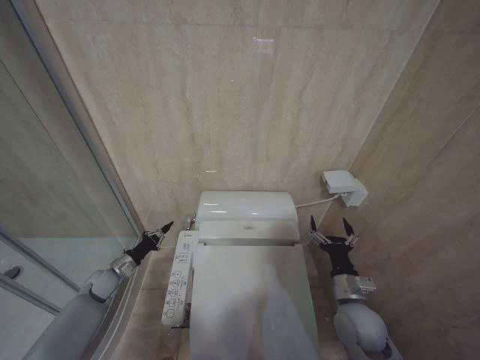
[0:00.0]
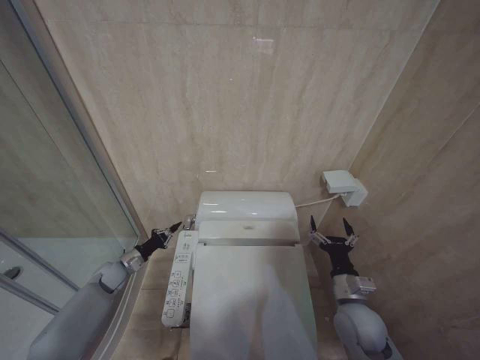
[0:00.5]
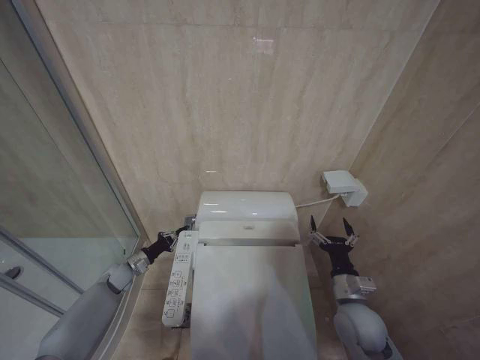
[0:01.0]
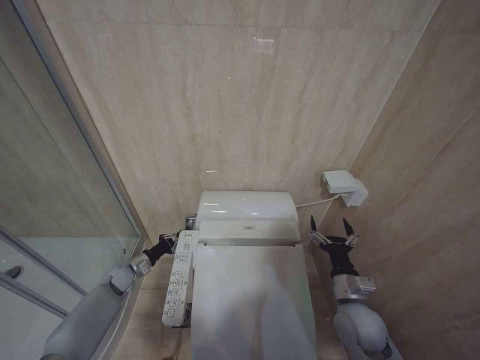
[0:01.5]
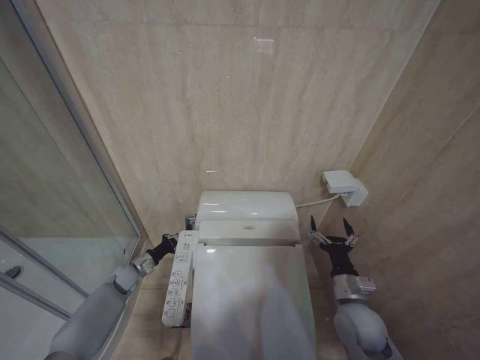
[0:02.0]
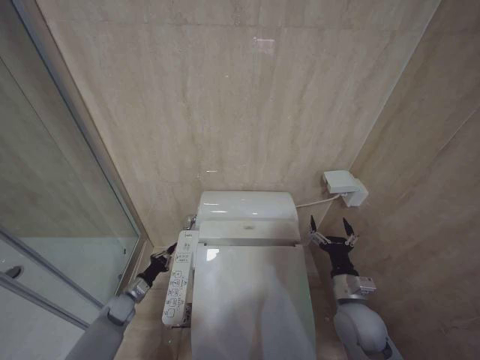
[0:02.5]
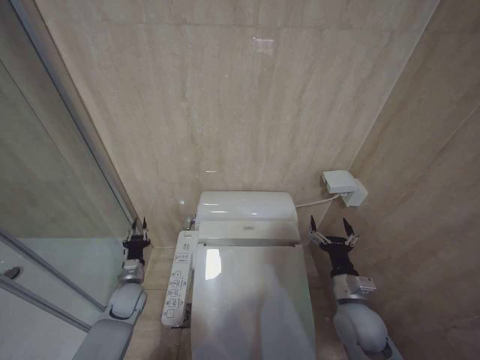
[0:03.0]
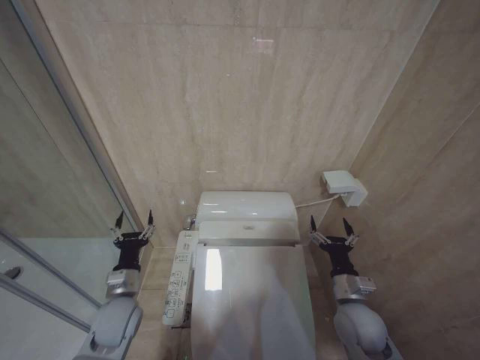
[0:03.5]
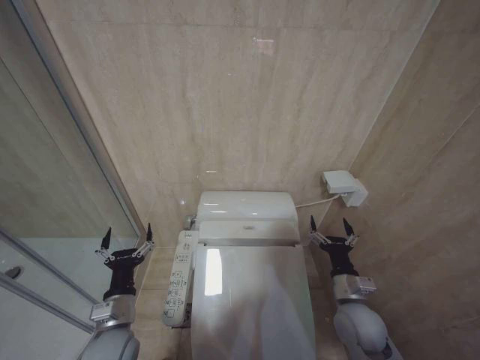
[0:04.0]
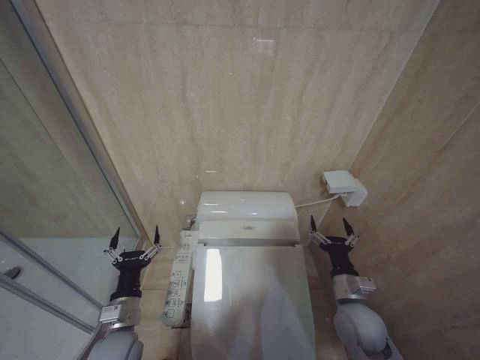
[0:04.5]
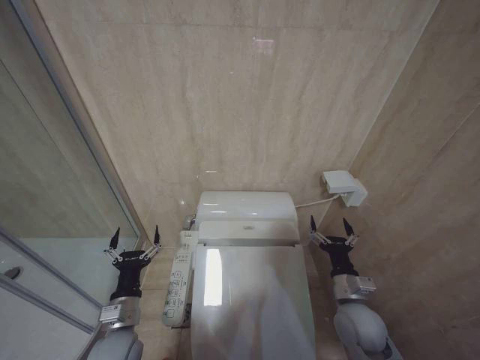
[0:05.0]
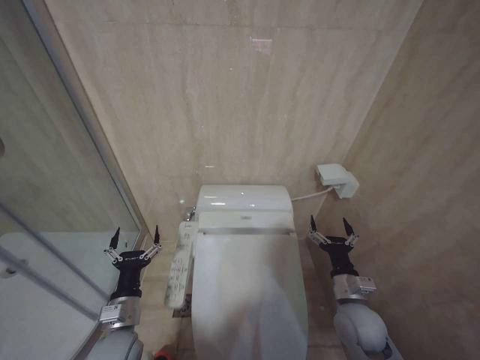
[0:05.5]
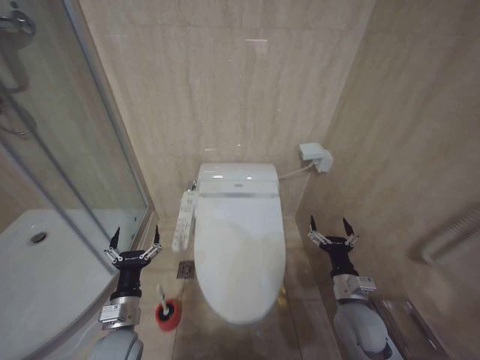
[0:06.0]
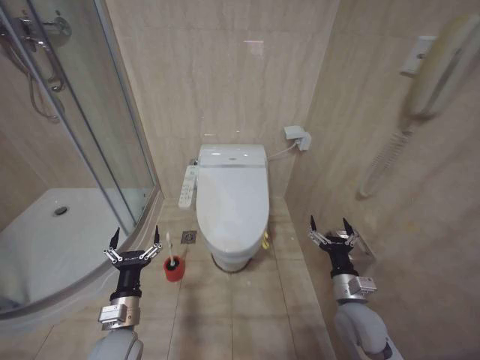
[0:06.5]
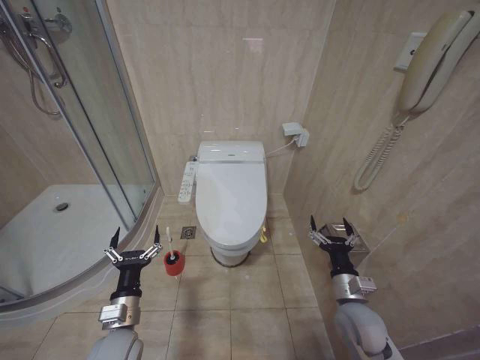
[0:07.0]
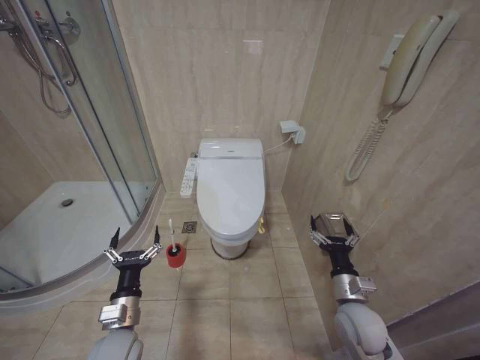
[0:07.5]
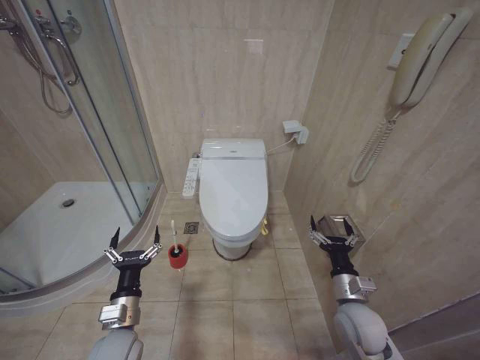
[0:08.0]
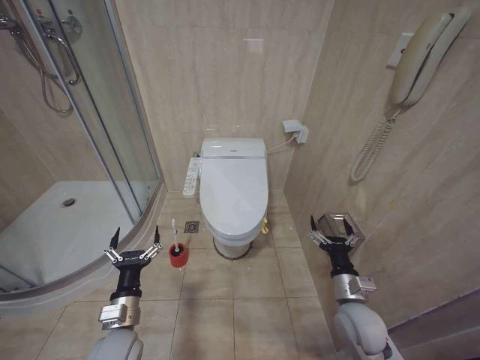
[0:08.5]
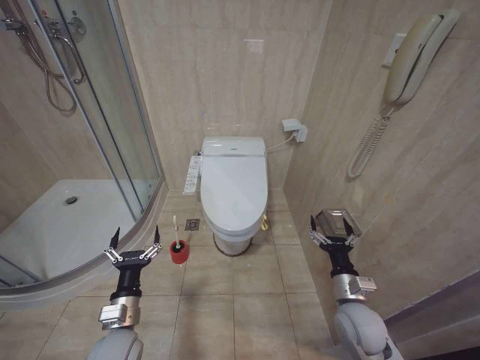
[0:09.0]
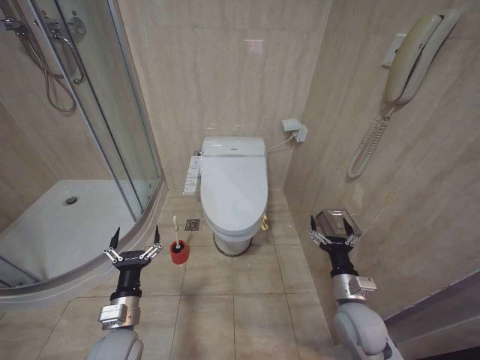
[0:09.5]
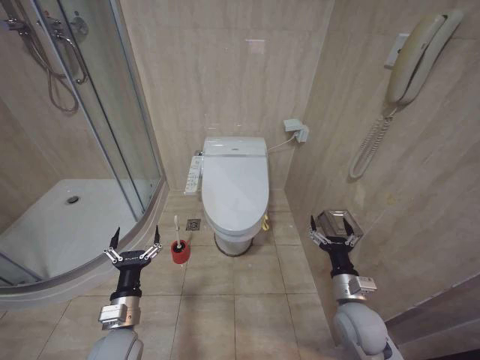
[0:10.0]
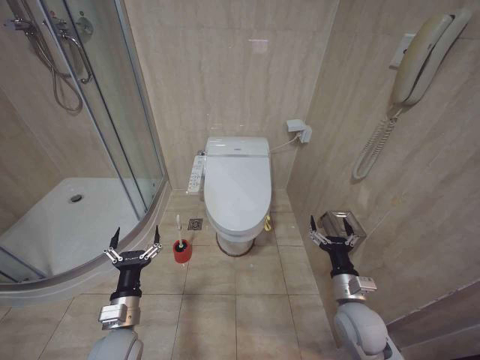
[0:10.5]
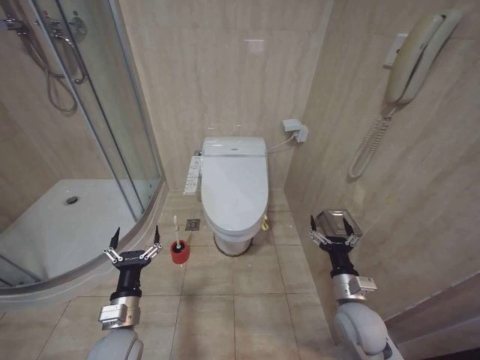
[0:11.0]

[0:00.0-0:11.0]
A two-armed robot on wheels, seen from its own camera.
Task of the whole recording: Open the toilet lid, clean the toilet bowl with a toilet brush, close the toilet lid, and flush.
0.0 to 2.0 s: The left gripper changes place by some 5 cm.
2.0 to 3.5 s: The left gripper shifts about 20 cm backward, upward and to the right, and opens its fingers.
3.5 to 5.5 s: The left gripper heads backward, covering about 10 cm, and opens up.
7.5 to 11.0 s: Neither gripper changes place.

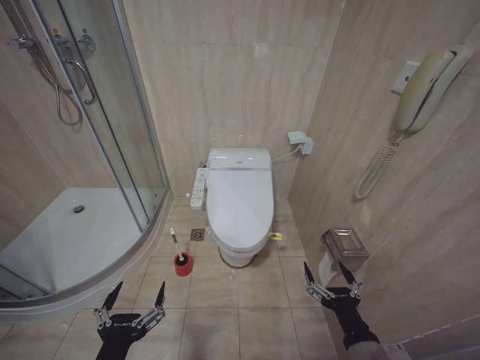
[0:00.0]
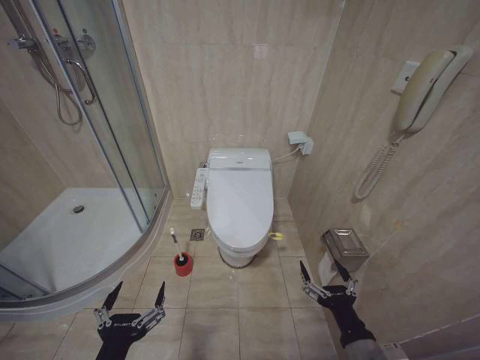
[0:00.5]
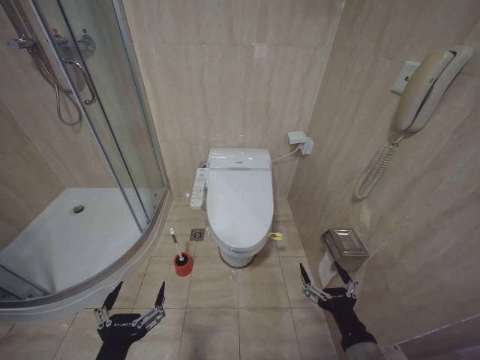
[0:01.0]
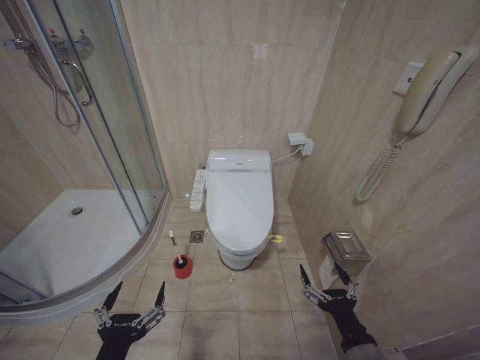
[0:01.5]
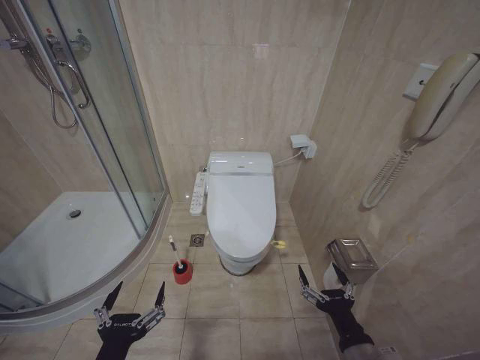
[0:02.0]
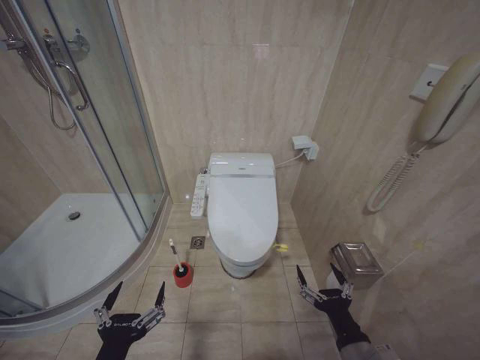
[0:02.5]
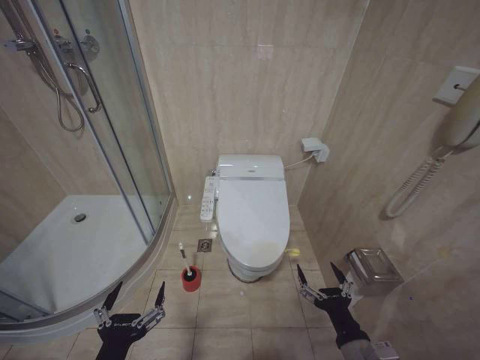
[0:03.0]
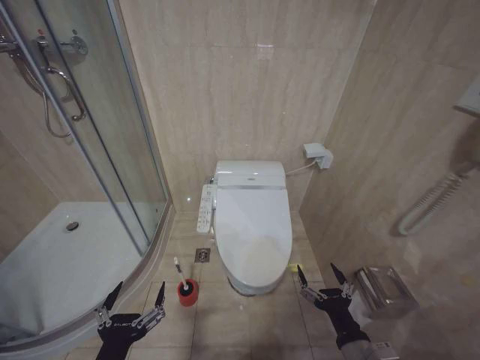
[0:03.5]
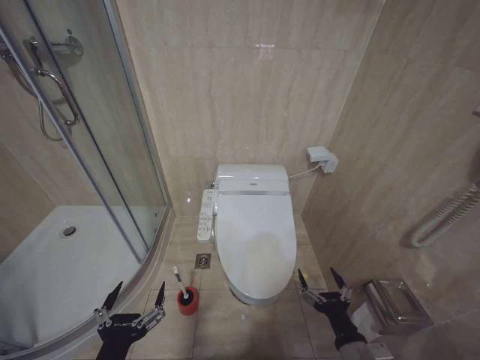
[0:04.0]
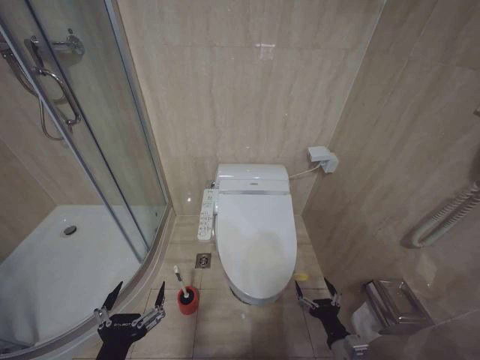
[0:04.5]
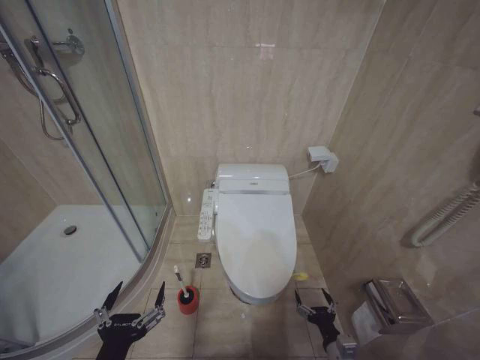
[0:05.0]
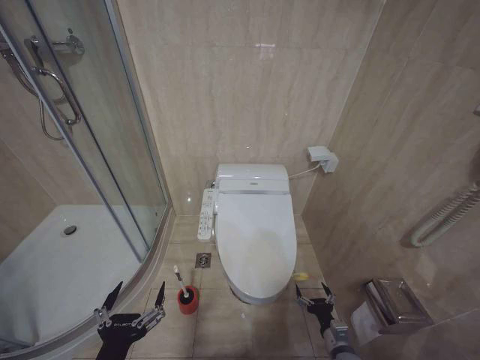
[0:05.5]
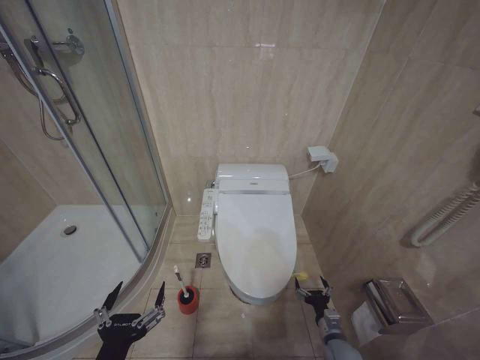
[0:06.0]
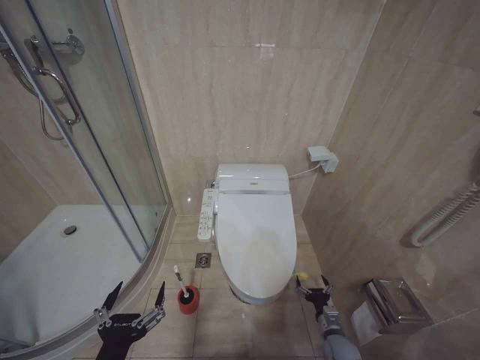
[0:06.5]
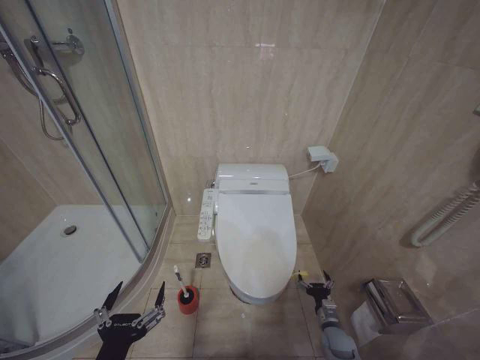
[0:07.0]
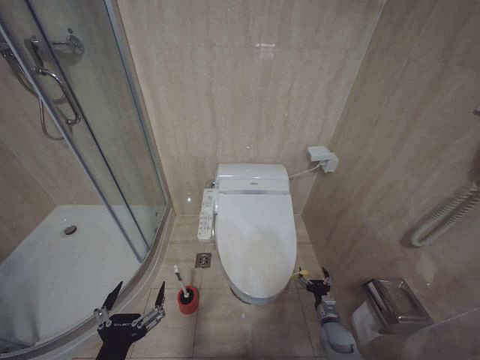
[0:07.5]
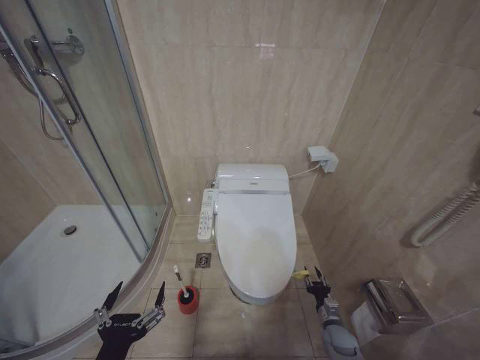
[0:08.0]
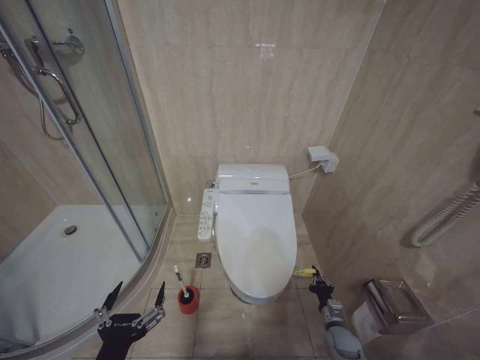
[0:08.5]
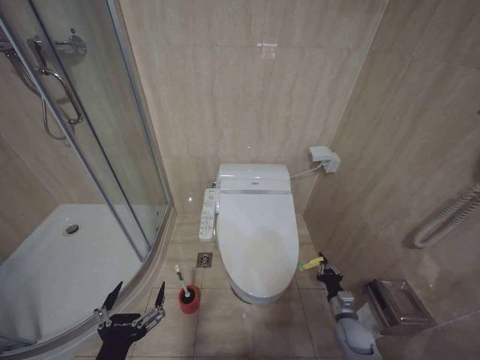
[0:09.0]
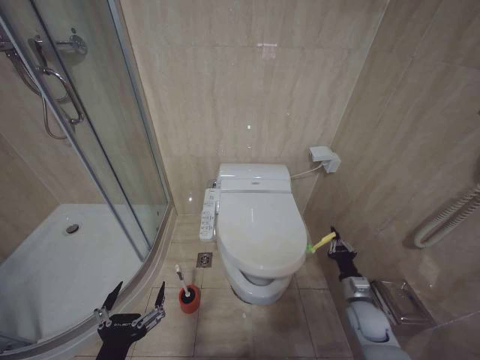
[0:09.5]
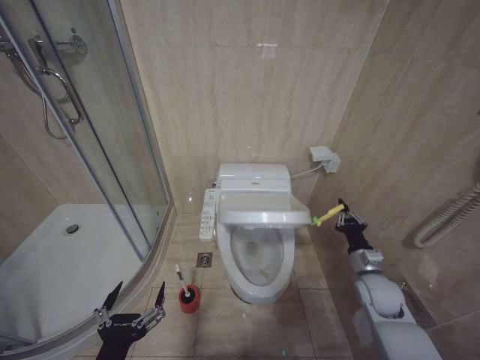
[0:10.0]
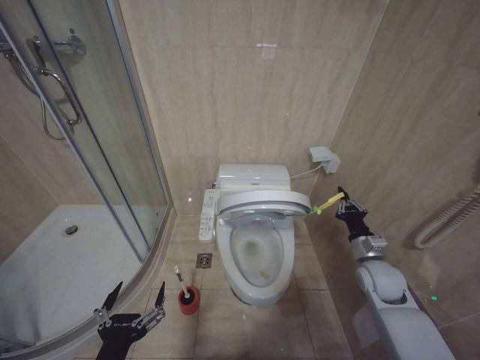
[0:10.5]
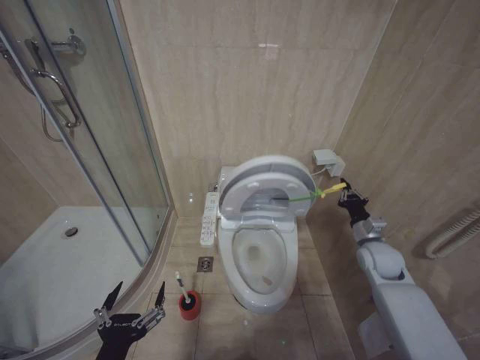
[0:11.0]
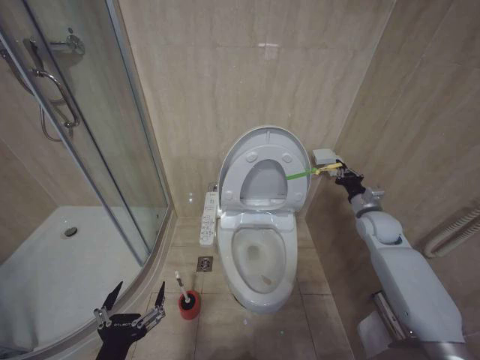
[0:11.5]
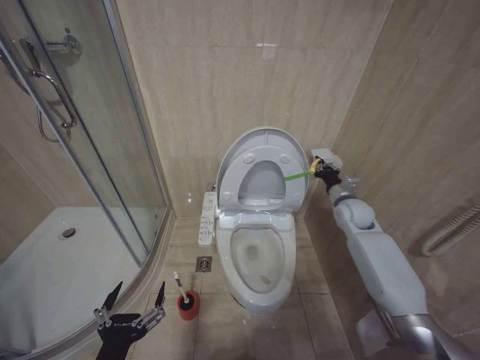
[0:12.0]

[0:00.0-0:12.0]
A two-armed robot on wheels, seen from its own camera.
Task of the whole recording: Open the toilet lid, clean the toilet bowl with a toilet brush, close the toilet lid, and flush.
2.0 to 4.0 s: The grippers make only small movements.
4.0 to 6.0 s: The right gripper goes roughly 20 cm downward and forward.
6.0 to 8.0 s: The right gripper moves forward, roughly 5 cm, and closes up.
8.0 to 10.0 s: The right gripper is displaced upward by roughly 20 cm, and closes up.
10.0 to 12.0 s: The right gripper moves forward and upward, some 20 cm.

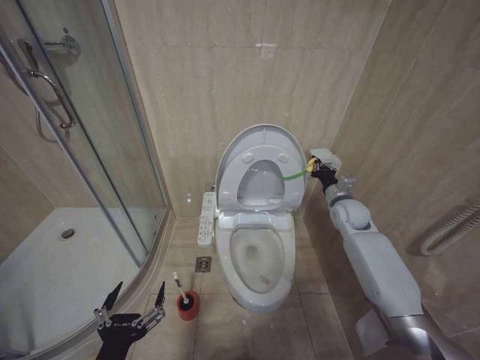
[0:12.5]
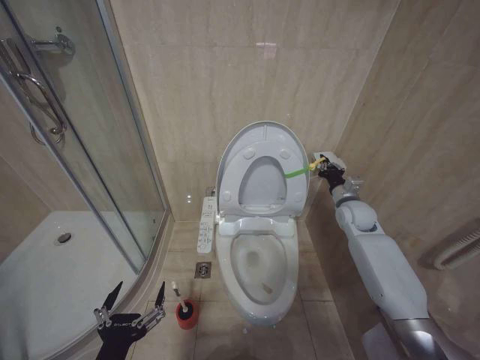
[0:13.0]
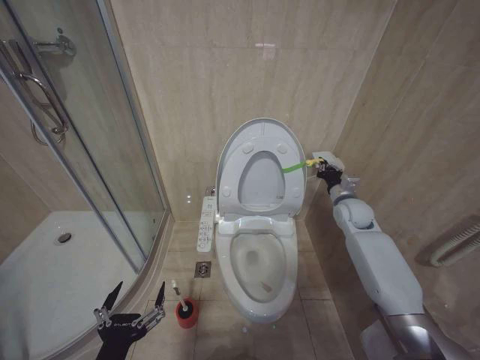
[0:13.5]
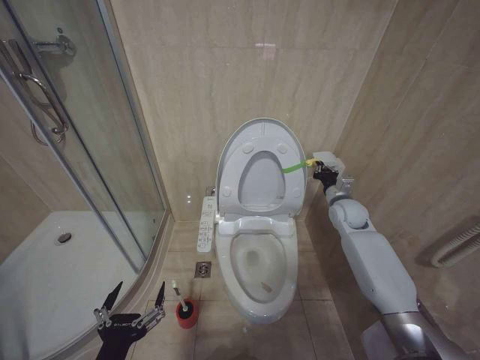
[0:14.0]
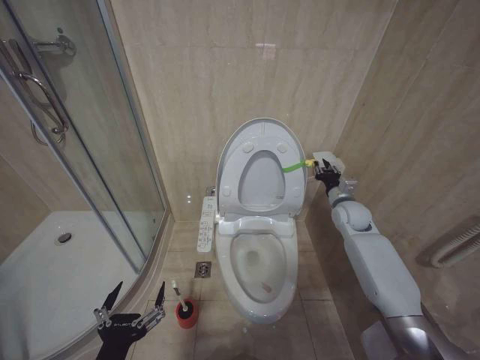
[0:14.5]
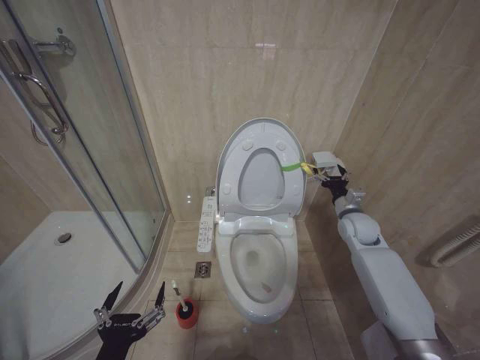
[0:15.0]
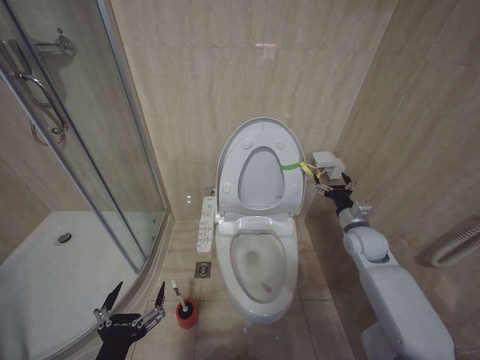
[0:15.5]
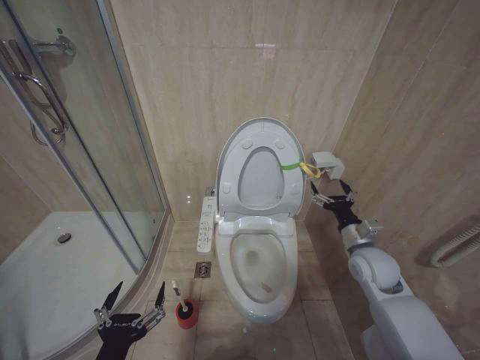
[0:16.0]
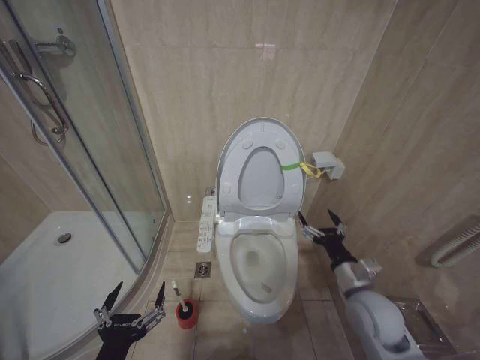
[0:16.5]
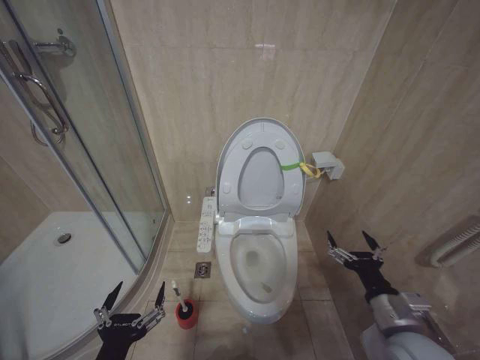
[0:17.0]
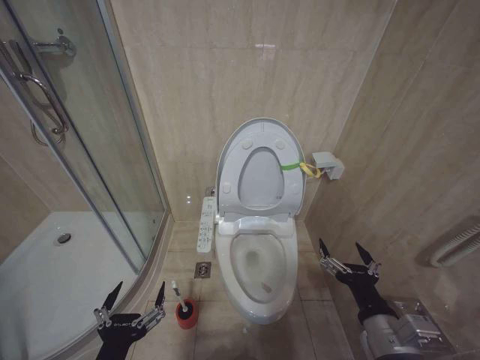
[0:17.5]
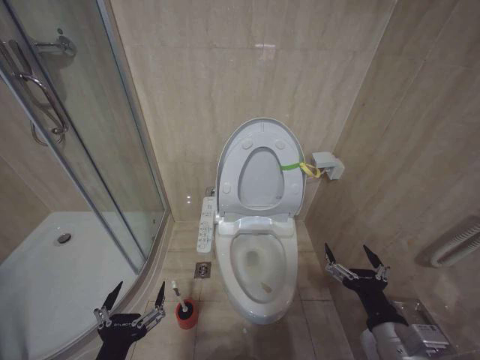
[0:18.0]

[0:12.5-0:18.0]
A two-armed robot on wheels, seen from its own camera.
Task of the whole recording: Open the toilet lid, clean the toilet bowl with a toilet brush, close the toilet lid, and flush.
12.5 to 14.5 s: There are only small adjustments of the grippers.
14.5 to 16.0 s: The right gripper goes about 15 cm backward, and opens up.
16.0 to 18.0 s: The right gripper heads backward, covering about 25 cm.
